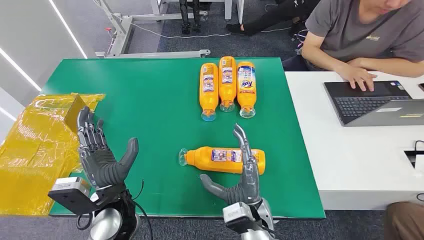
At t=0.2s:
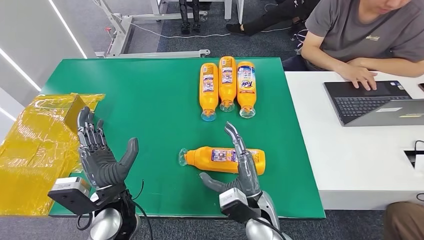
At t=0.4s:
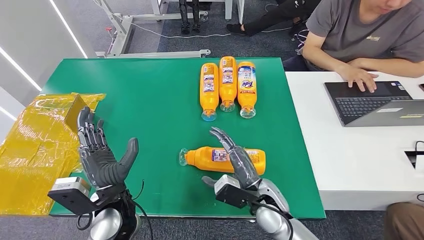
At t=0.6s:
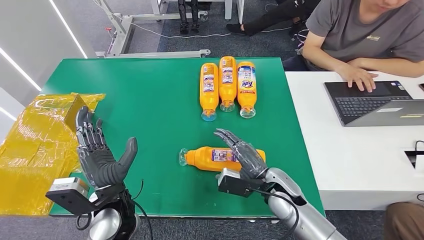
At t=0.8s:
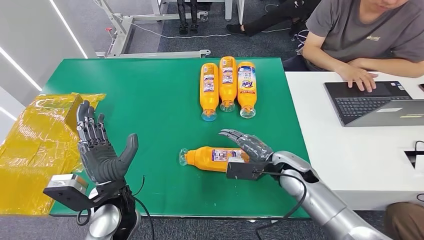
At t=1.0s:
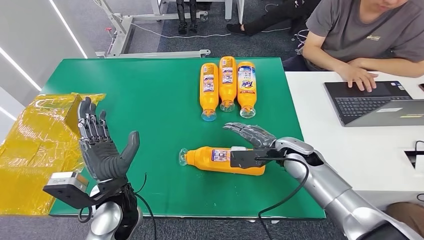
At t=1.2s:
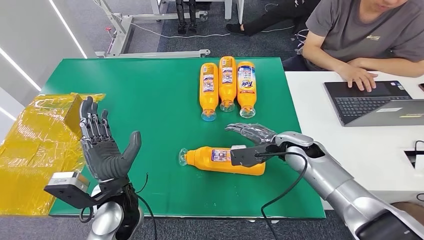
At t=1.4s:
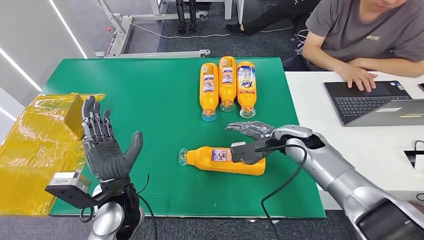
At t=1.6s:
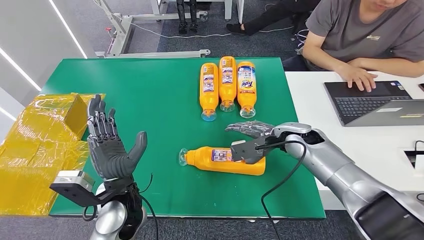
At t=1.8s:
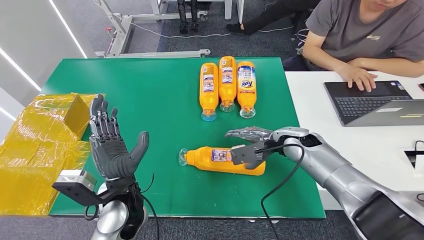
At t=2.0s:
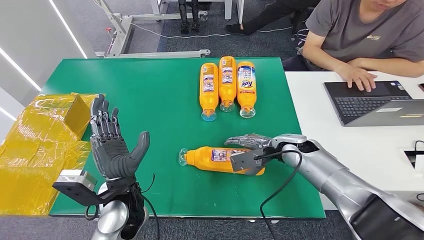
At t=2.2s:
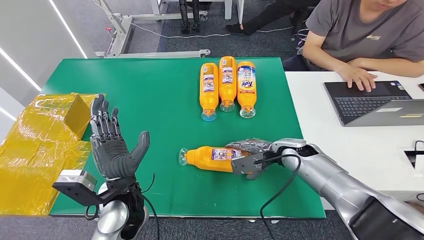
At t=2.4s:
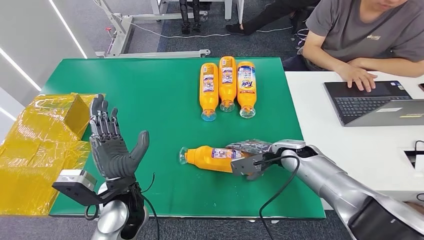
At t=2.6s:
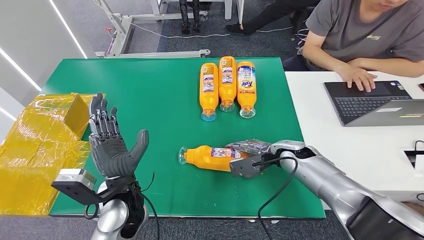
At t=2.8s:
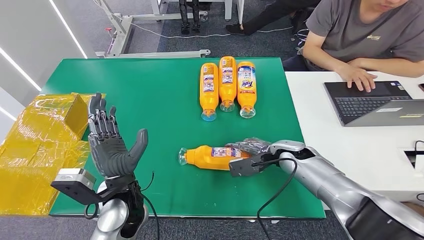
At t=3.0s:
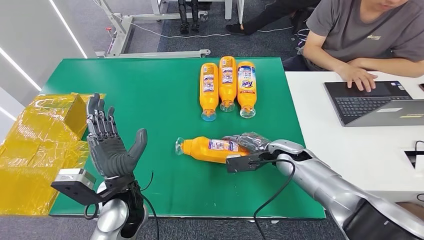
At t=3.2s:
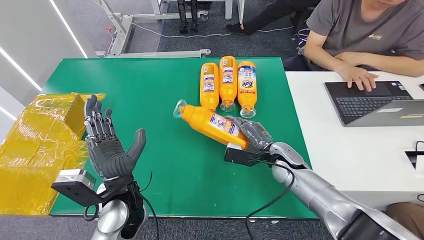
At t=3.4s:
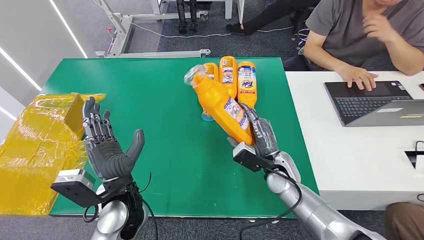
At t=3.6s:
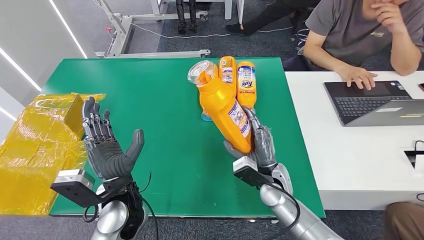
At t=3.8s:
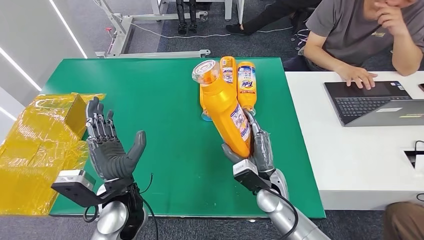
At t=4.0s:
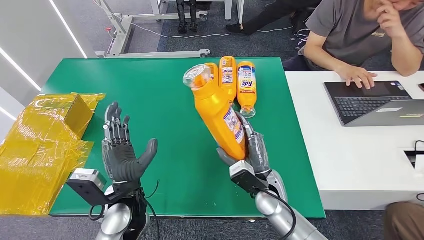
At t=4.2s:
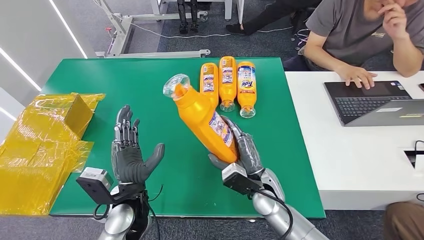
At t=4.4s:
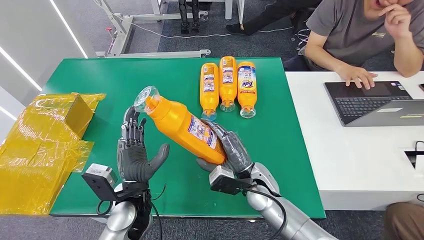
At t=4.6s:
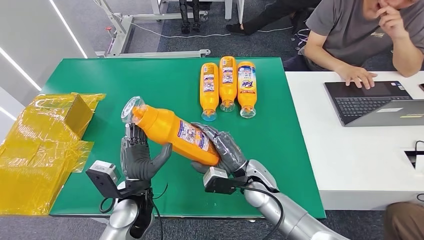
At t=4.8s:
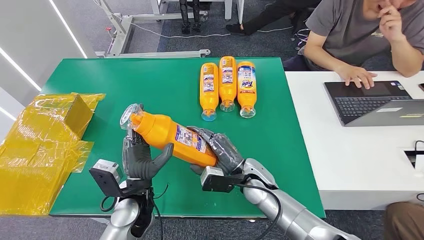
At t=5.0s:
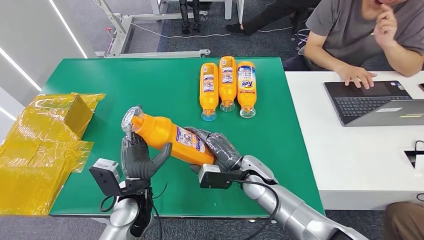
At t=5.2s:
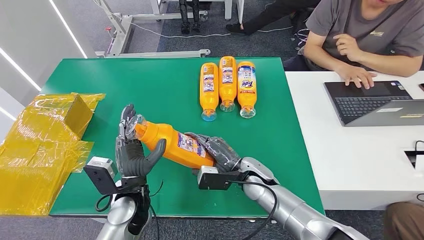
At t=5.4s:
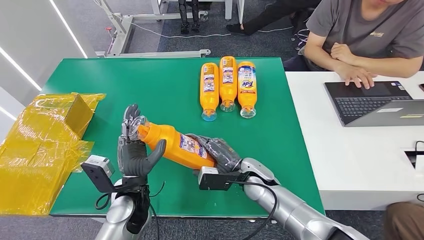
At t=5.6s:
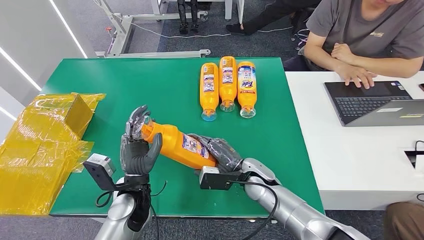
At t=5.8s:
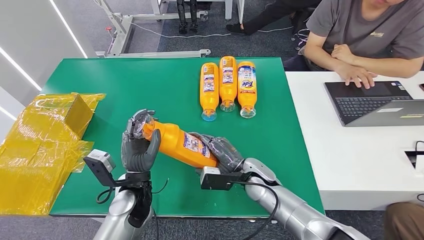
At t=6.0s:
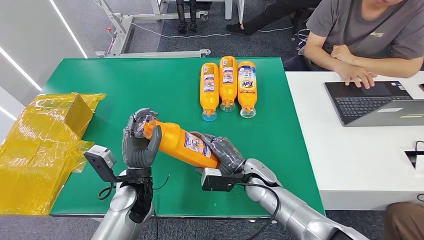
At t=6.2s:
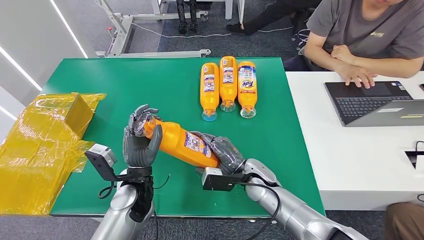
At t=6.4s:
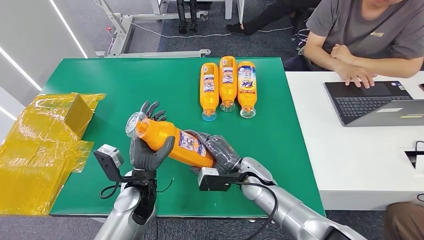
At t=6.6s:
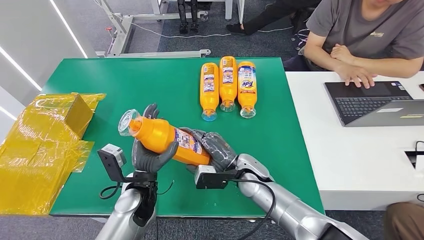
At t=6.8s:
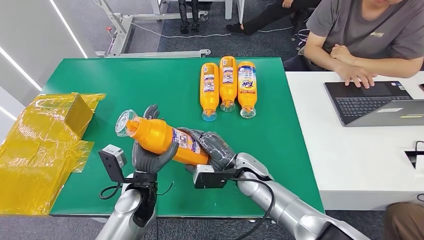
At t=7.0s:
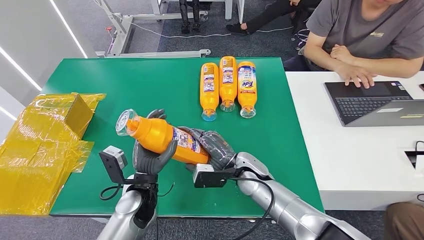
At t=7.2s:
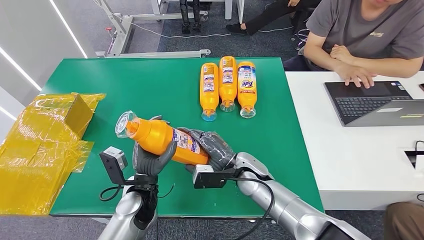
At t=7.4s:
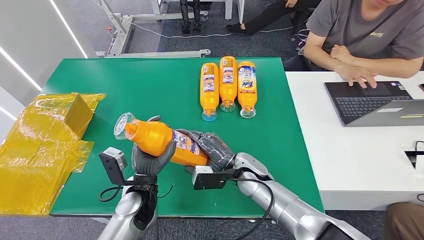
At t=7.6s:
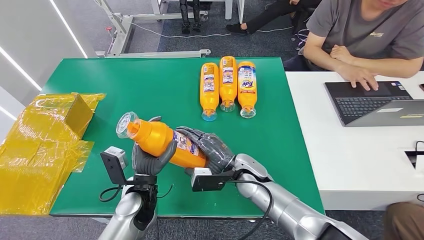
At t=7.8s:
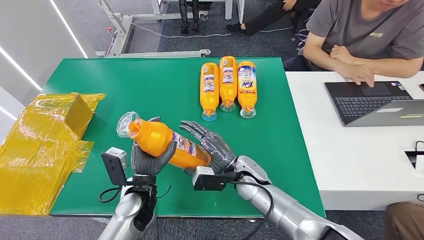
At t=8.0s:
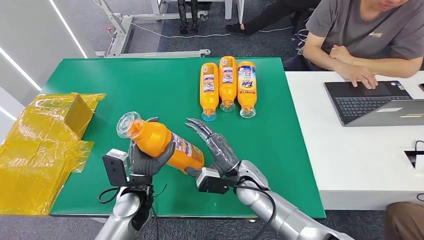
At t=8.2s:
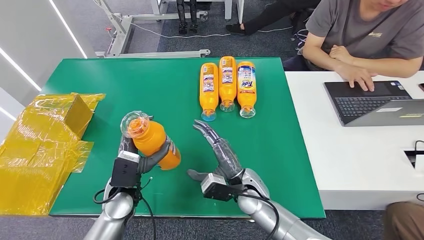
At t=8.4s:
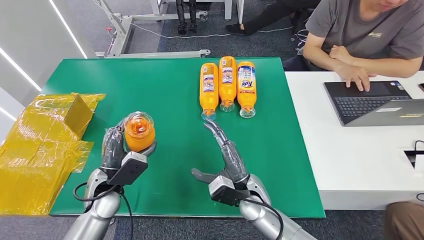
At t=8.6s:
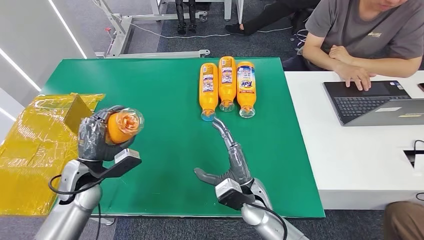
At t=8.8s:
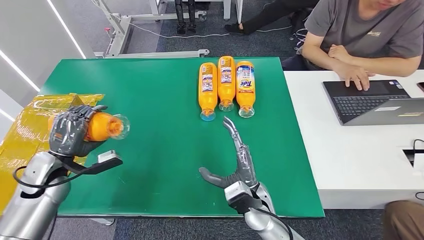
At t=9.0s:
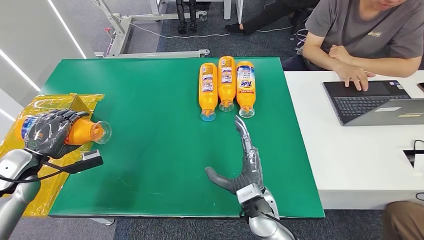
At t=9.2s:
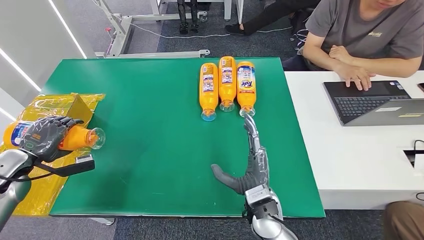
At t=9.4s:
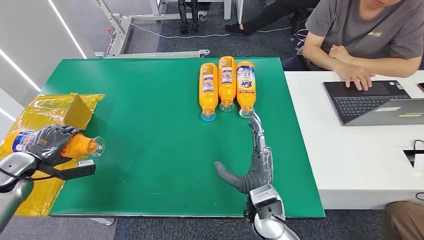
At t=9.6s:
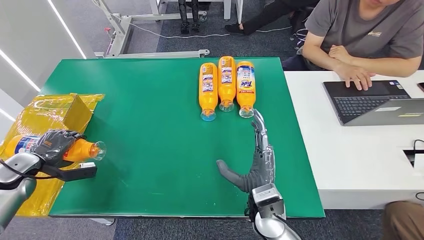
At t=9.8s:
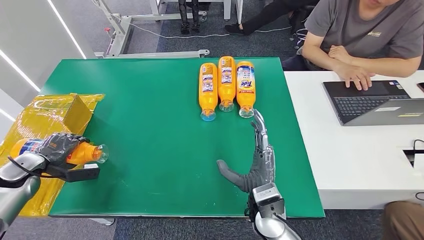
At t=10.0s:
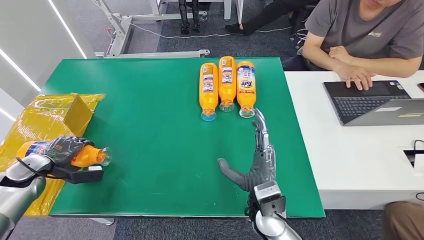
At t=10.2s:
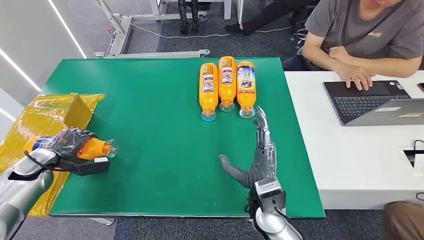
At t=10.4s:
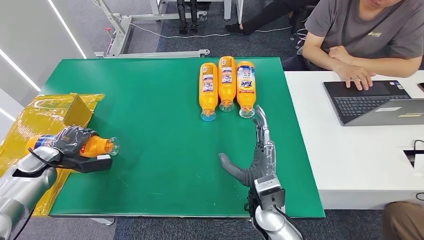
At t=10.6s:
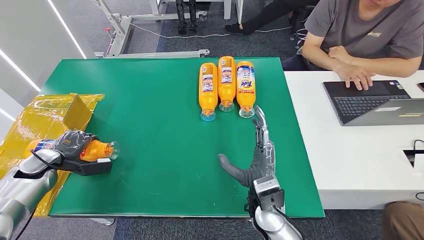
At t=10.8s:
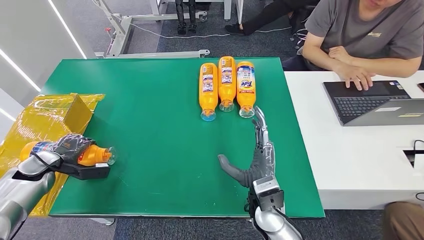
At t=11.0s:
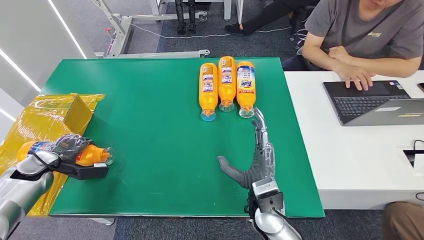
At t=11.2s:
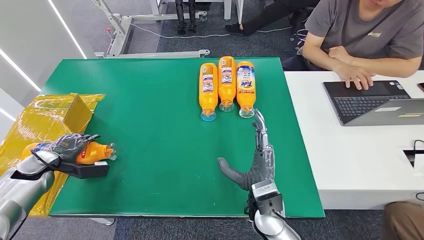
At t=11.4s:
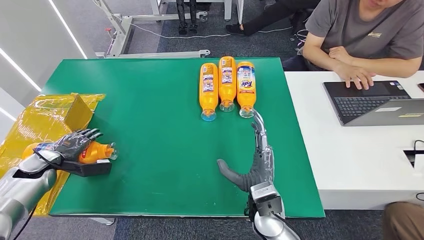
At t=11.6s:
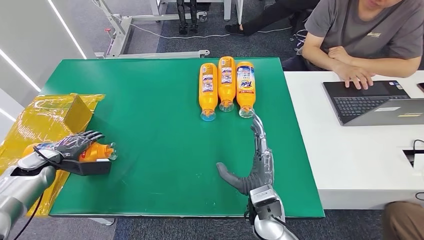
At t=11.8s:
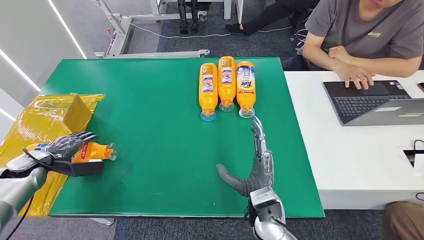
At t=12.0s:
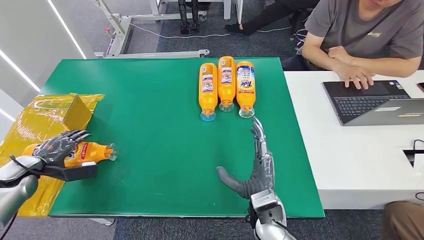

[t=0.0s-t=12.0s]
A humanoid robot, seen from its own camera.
Step, t=0.0s to t=4.2s: Pick up the bottle from the table.
t=1.6s to t=3.0s: The right hand is displaced downward by some 5 cm.
t=6.0s to t=7.6s: The hands make only small movements.
t=9.0s to t=10.4s: The left hand goes approximately 5 cm downward.
t=10.4s to t=12.0s: There are only small adjustments of the hands.

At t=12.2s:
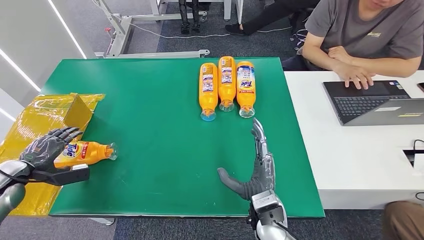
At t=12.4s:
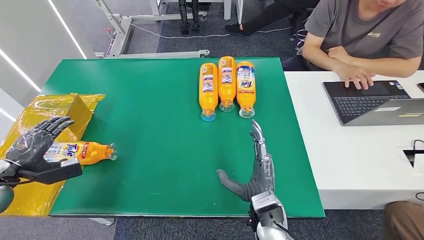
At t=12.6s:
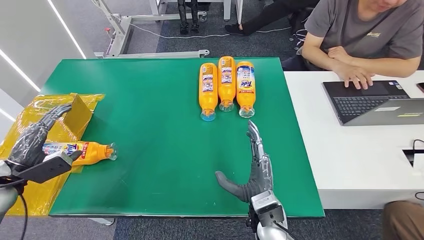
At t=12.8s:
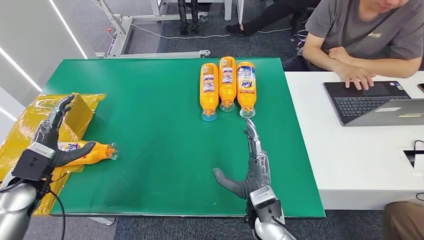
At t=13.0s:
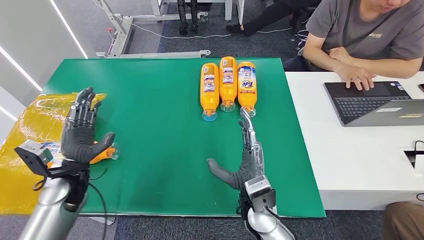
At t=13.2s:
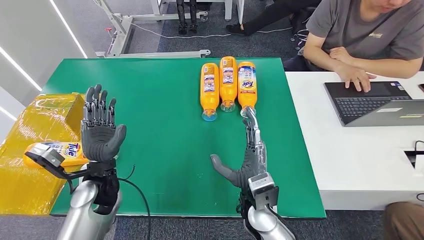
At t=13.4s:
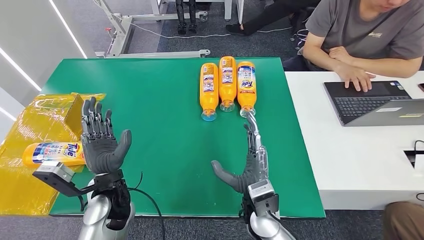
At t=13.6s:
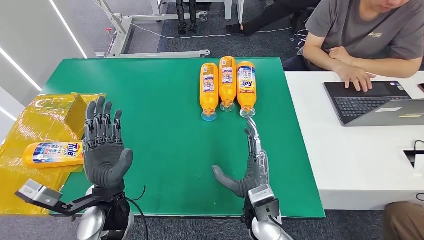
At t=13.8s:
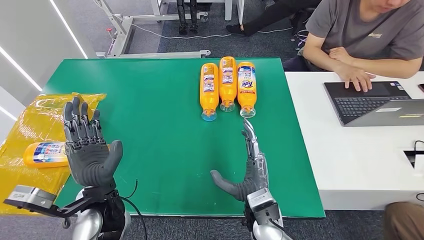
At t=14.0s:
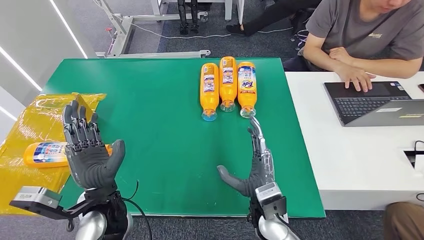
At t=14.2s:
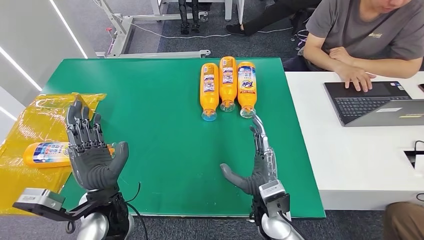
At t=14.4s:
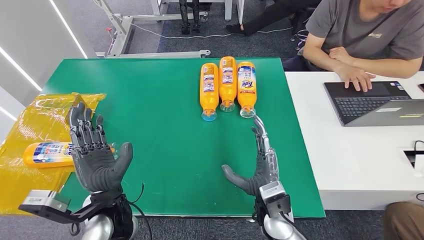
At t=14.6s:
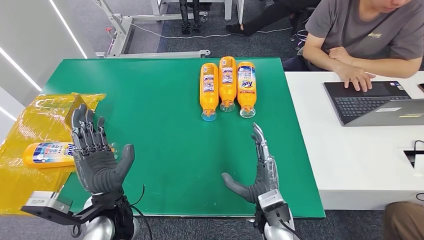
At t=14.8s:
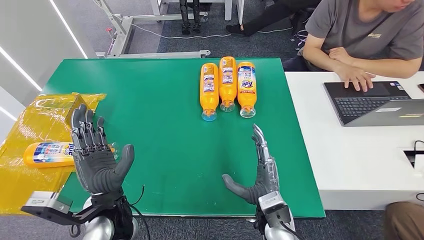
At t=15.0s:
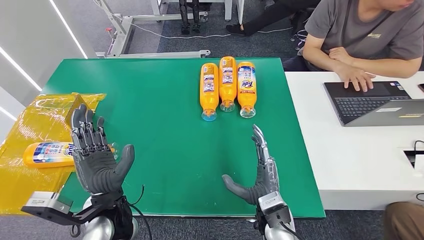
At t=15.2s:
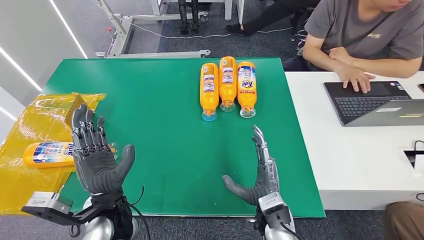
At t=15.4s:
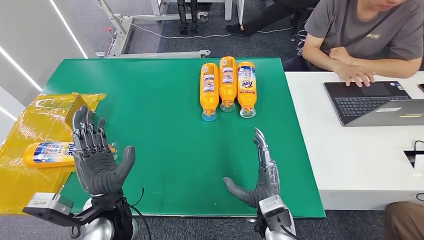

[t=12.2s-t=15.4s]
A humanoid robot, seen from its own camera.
Step, t=12.2s to t=15.4s: Turn the bottle to the front side.
t=12.2s to t=13.8s: The left hand heads to the right, covering roughly 35 cm.
t=13.8s to t=15.4s: There are only small adjustments of the hands.

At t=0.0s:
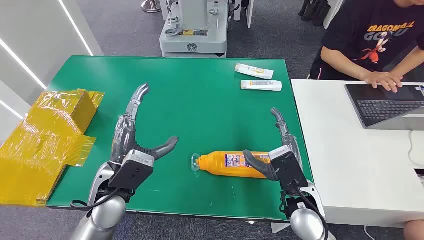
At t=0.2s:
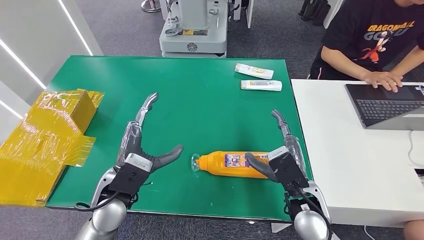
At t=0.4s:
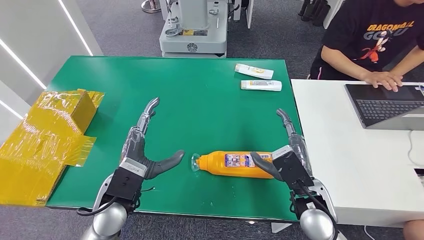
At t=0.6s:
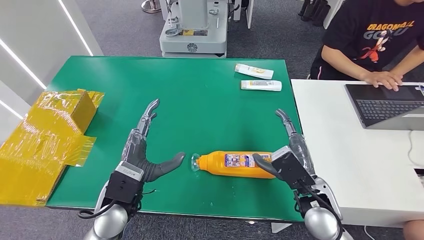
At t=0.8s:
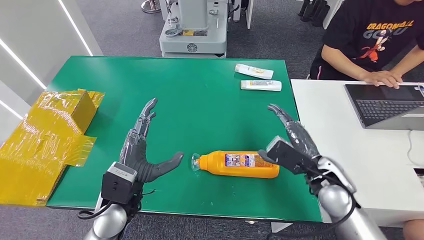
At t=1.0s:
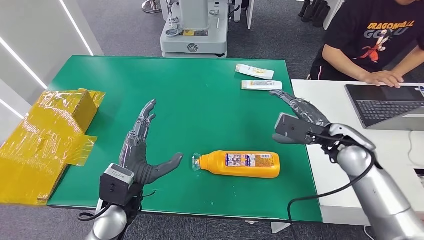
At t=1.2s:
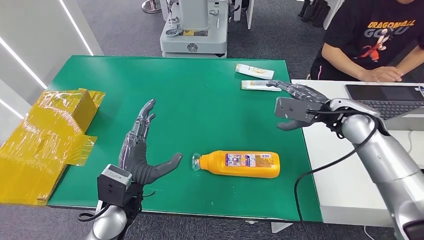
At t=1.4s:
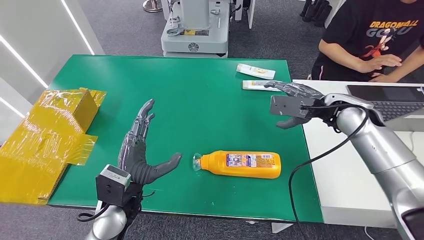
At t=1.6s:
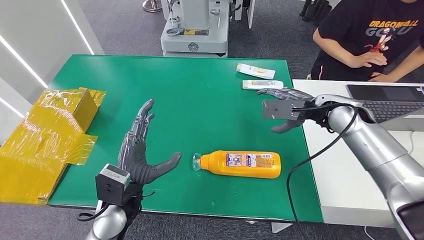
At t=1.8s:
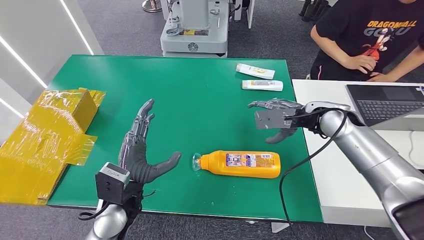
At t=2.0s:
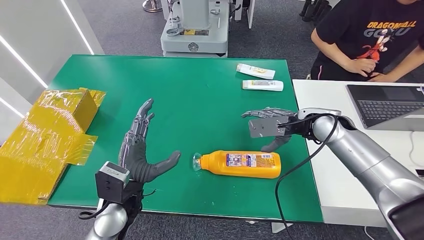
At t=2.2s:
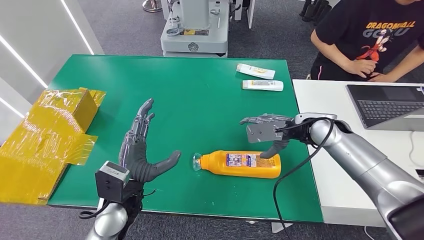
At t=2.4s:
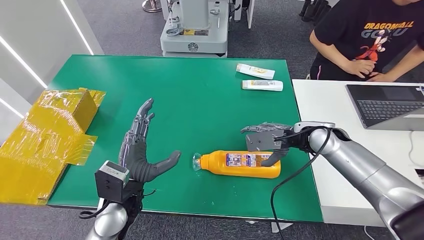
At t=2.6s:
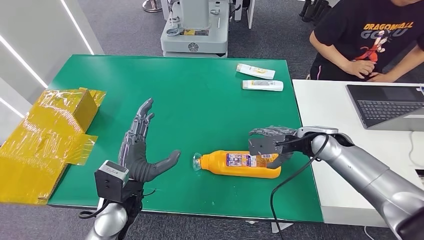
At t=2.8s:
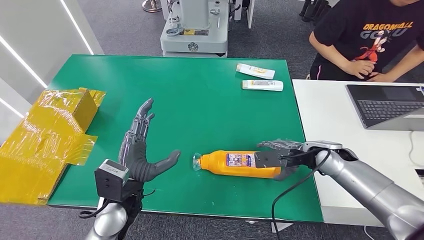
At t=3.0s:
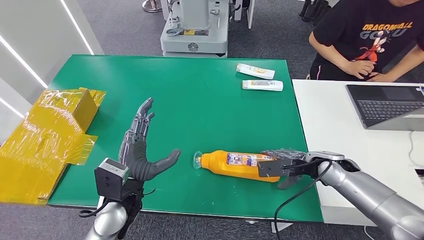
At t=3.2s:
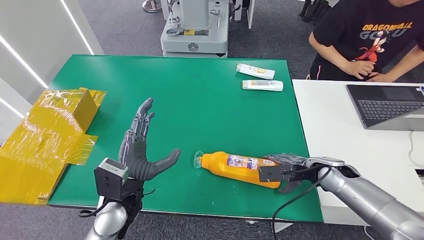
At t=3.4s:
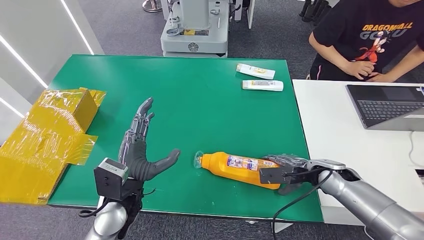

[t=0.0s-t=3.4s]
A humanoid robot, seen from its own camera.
t=1.6s to t=3.4s: The right hand moves downward and backward, about 20 cm.
